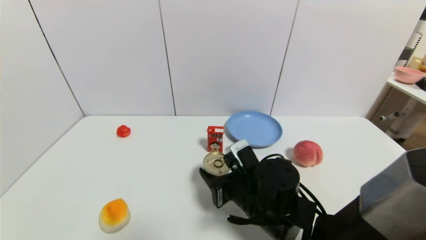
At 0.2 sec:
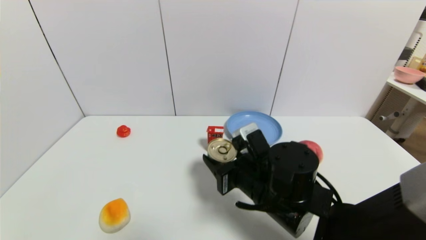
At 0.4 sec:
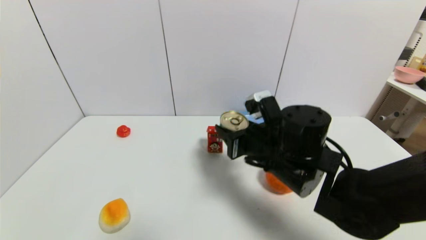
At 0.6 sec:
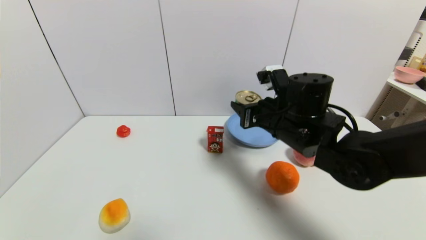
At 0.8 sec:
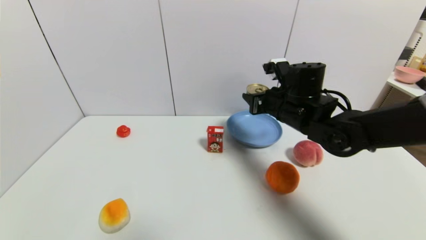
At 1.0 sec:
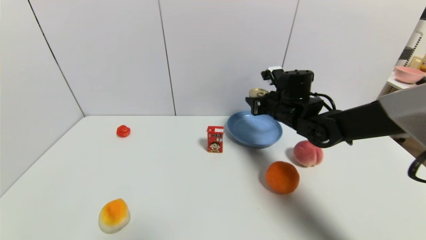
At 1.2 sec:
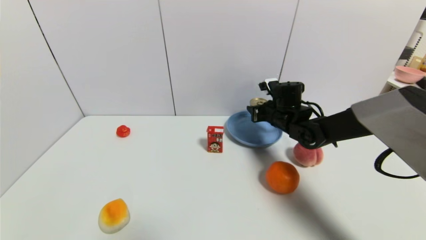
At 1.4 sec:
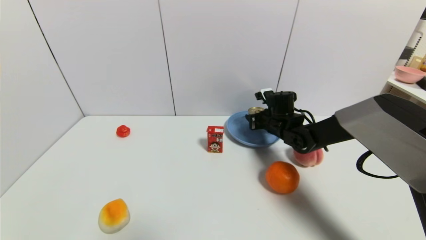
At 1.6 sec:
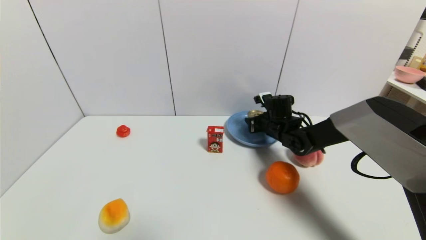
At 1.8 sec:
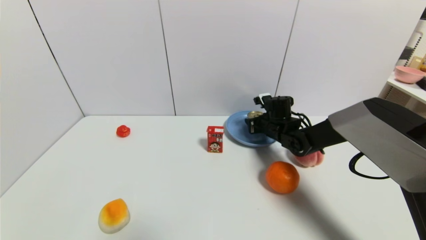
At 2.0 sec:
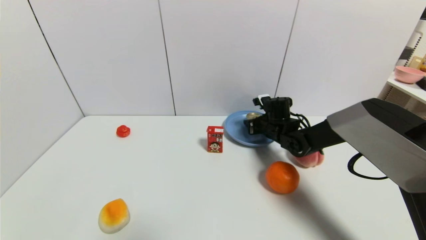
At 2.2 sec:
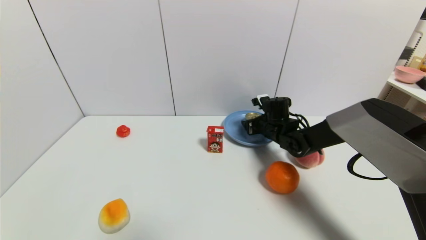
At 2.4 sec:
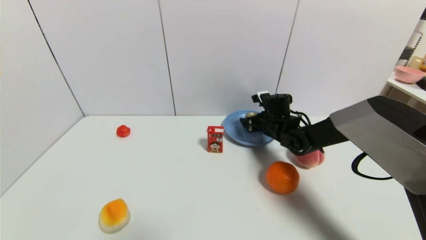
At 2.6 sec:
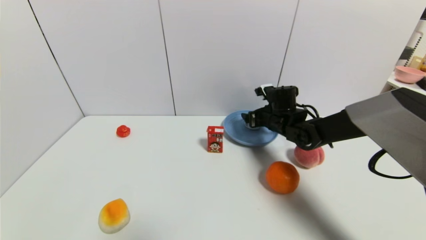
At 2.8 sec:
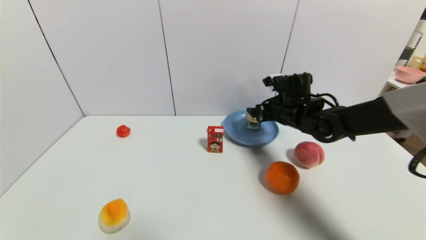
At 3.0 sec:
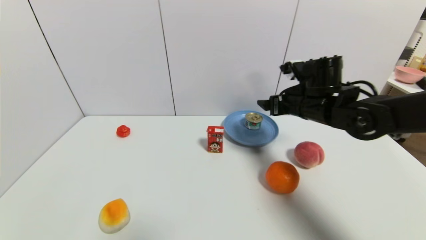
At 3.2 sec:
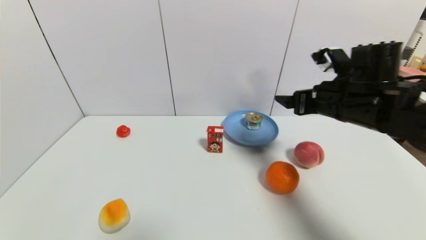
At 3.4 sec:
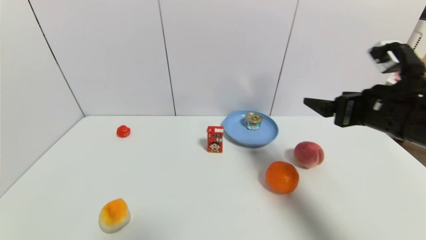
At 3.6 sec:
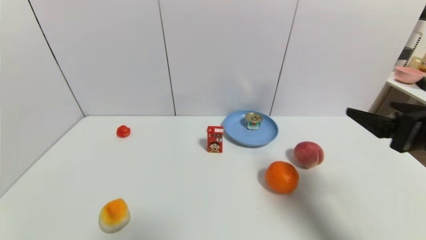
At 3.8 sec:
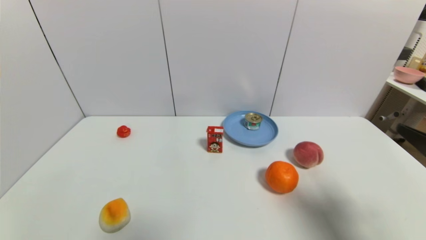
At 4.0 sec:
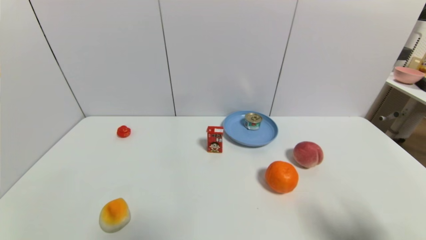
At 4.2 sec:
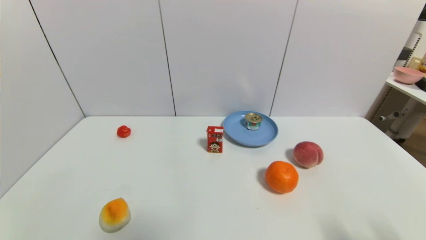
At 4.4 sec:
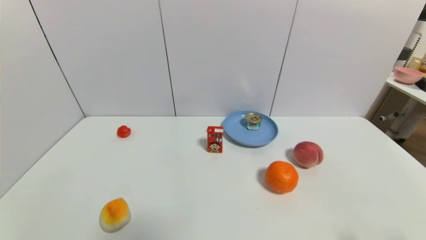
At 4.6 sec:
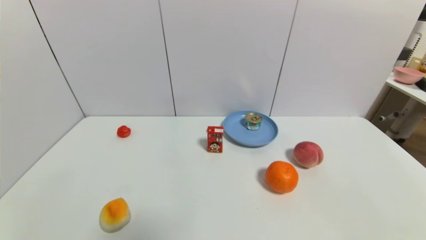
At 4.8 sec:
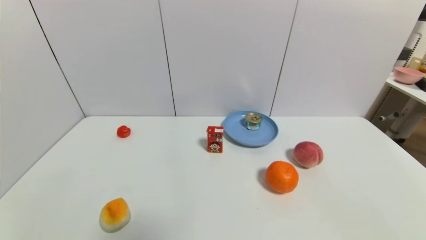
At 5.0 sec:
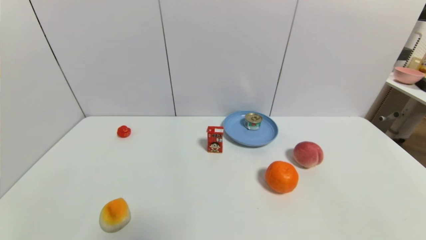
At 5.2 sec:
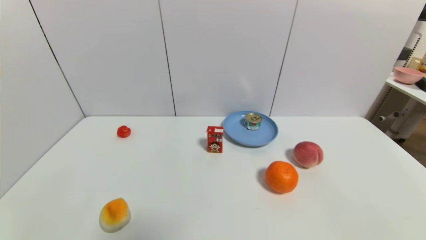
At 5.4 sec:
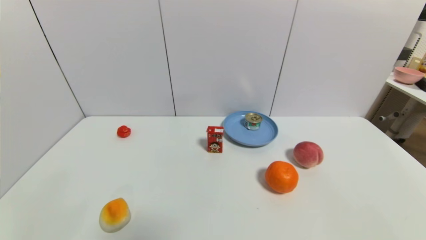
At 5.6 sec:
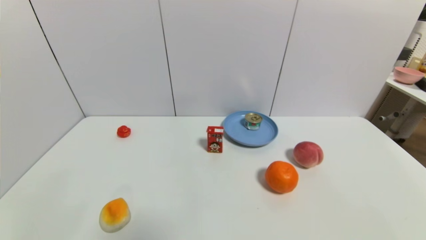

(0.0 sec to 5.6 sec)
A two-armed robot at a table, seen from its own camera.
Task of the whole recording: use a gripper to pick the target object and place on the blue plate.
Step, 0.0 sec - 3.2 sec: Place the tin on the blue plate with the right gripper.
0.0 sec - 1.4 sec: The right gripper goes about 25 cm forward and to the right.
1.4 sec - 2.8 sec: The right gripper shifts approximately 5 cm upward, and opens.
2.8 sec - 4.2 sec: The right gripper travels backward and to the right by approximately 40 cm.
